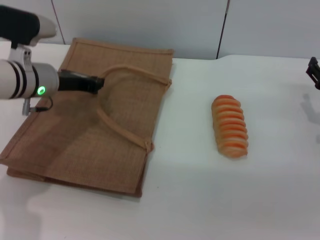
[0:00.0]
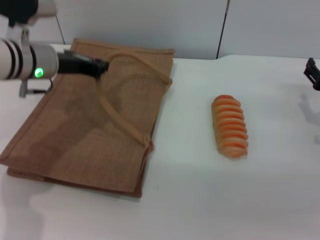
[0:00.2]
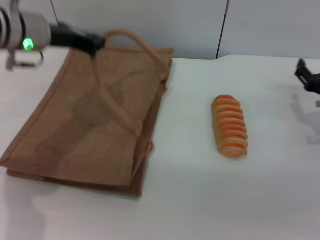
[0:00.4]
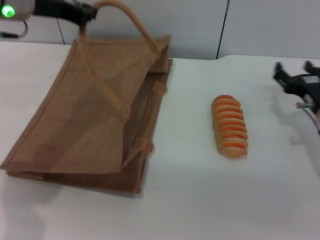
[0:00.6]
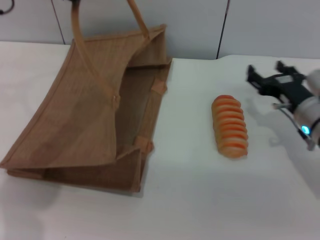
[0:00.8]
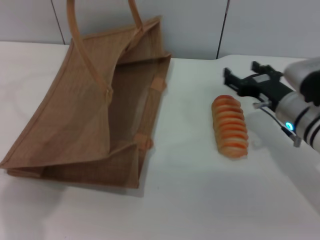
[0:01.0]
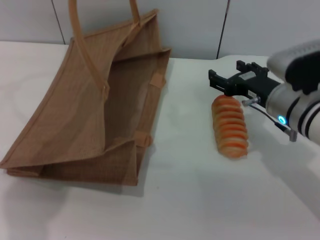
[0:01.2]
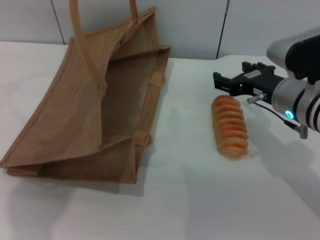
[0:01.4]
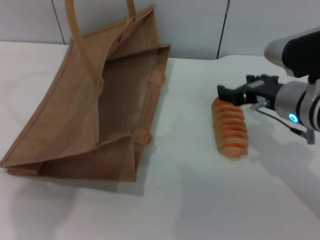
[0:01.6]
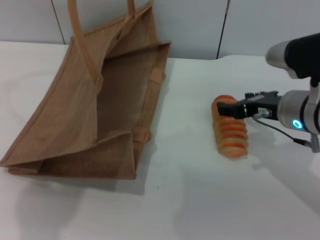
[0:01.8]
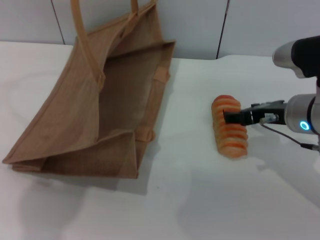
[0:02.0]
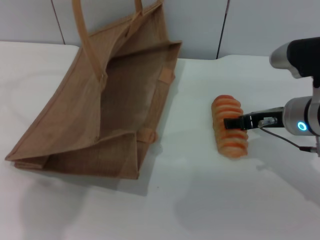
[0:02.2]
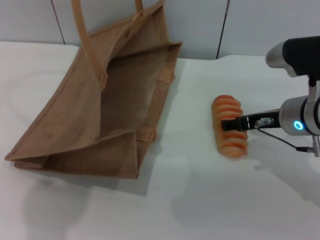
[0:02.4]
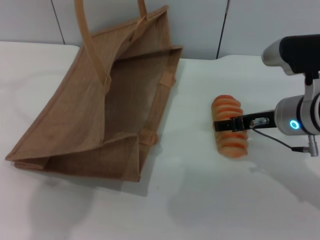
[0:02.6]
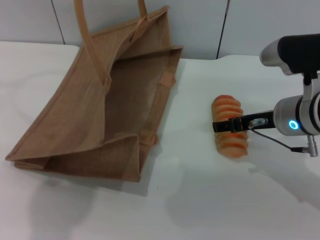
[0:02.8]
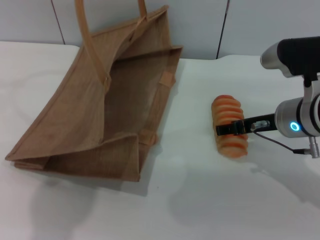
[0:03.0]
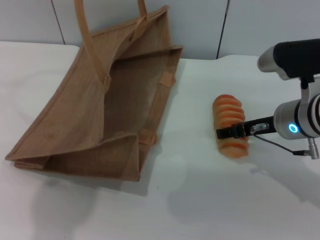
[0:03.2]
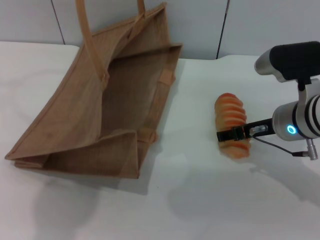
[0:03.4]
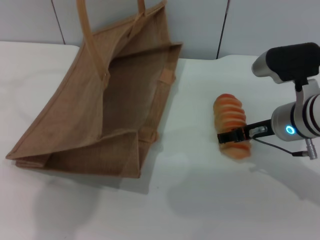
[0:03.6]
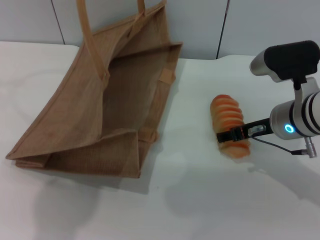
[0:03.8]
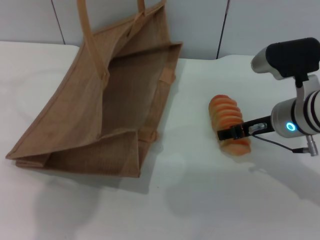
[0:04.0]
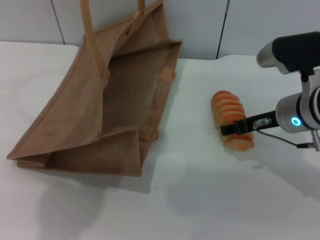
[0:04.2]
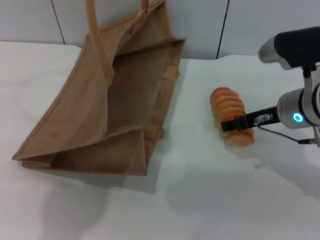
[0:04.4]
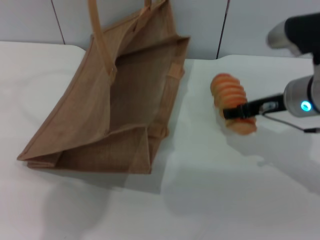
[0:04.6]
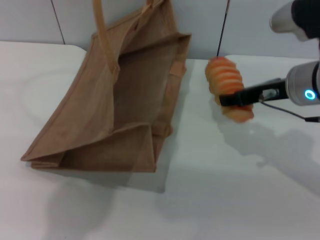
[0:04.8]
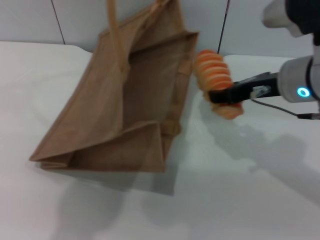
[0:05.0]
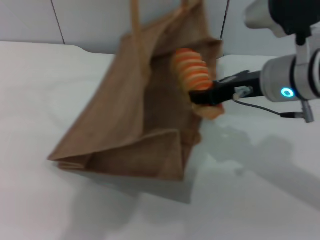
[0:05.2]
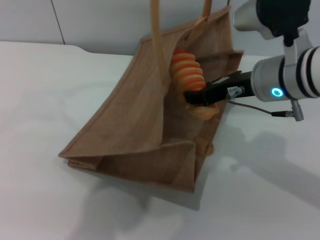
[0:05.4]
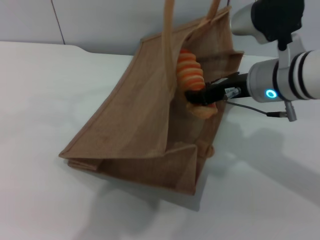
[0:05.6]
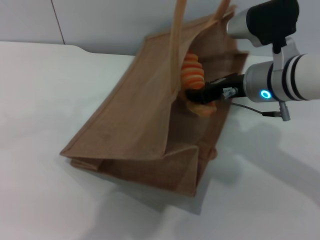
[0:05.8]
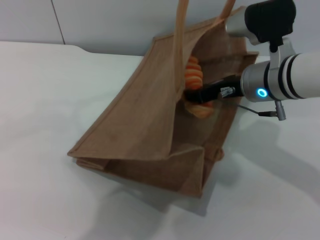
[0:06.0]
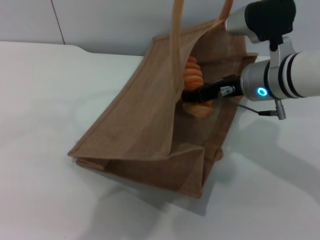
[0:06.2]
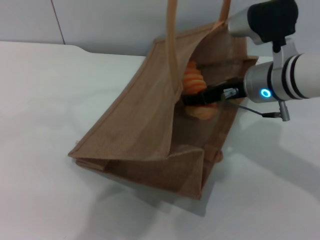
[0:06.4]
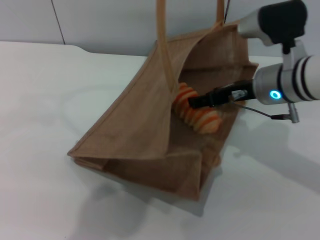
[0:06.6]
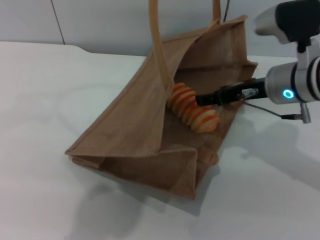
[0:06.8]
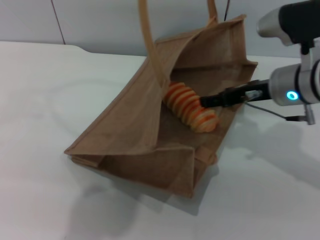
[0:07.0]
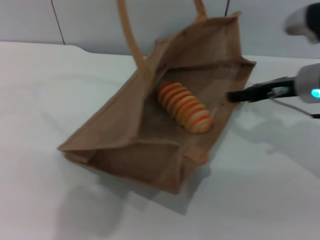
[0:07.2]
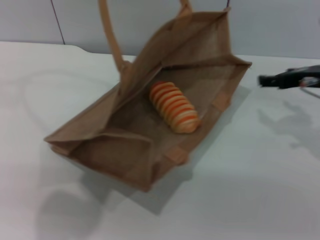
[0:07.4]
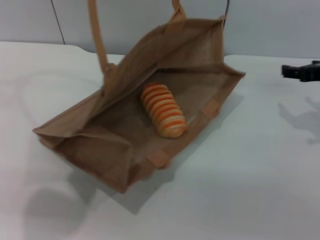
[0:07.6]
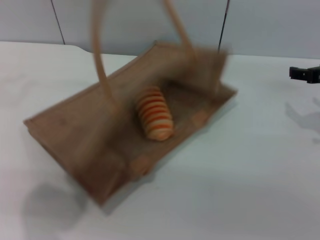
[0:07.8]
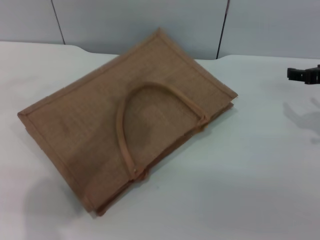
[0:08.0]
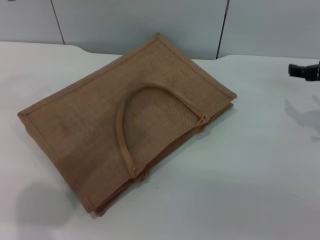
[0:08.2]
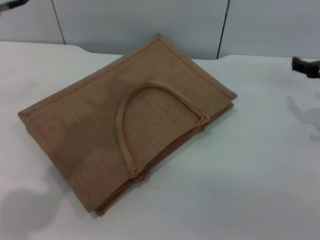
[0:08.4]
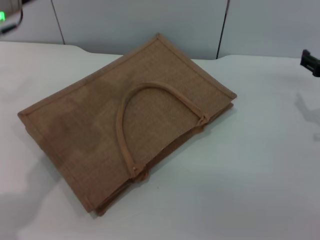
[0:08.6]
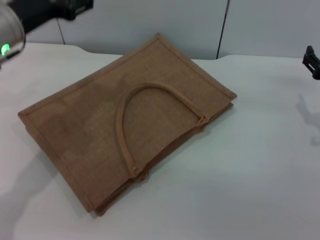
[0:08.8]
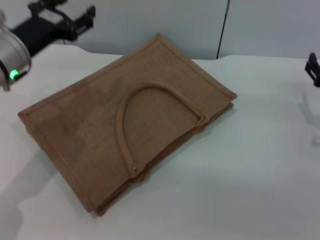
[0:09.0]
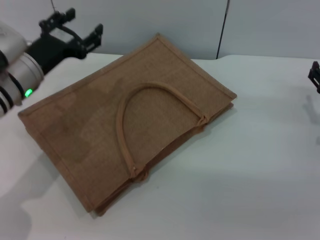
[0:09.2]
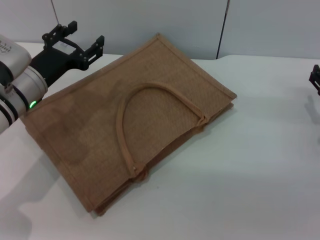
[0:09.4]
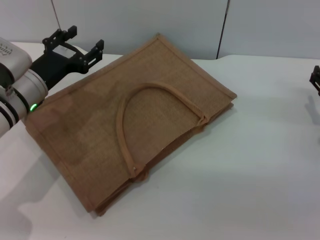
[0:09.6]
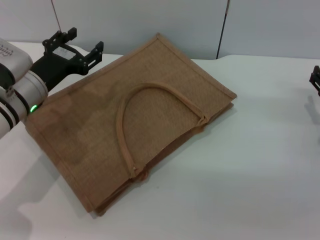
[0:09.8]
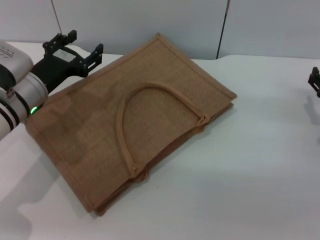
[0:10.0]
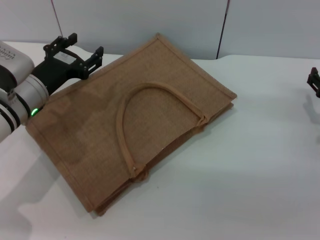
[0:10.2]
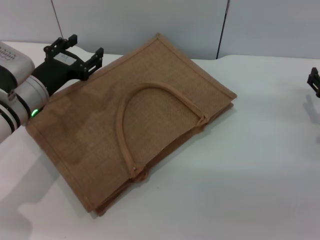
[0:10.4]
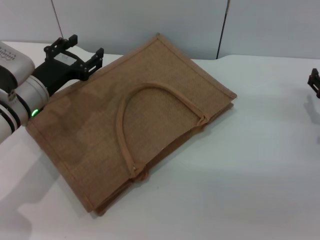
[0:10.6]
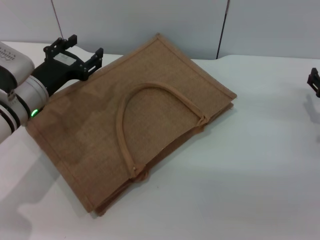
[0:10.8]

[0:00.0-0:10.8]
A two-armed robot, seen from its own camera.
Task of the whole recording: pick up the bread from the table and place it in the brown handbag.
Step, 0:00.8 to 0:04.6: Pick up the bread with the right gripper.
Step, 0:04.8 to 0:06.8: Place the bread into the woven bag with the right gripper.
Step, 0:07.0 to 0:08.0: Lower the woven bag with the left gripper to close it.
0:00.0 to 0:01.6: The right gripper goes roughly 15 cm to the left and upward; the left gripper is displaced upward by approximately 25 cm.
0:03.0 to 0:04.6: The right gripper closes.
0:04.6 to 0:06.2: The left gripper travels to the right by about 10 cm, while the right gripper heads to the left, covering some 5 cm, and closes its fingers.
0:06.2 to 0:07.8: The left gripper shifts about 10 cm to the left, while the right gripper goes approximately 15 cm to the right, and opens up.
0:07.8 to 0:09.2: The right gripper goes approximately 10 cm downward, while the left gripper shifts approximately 20 cm downward, and opens.
0:09.2 to 0:10.8: The grippers stay close to where they were, moving slightly.
